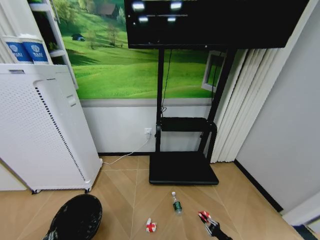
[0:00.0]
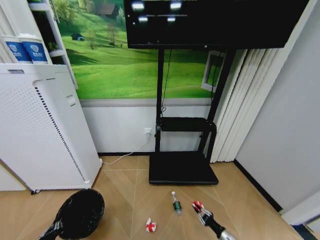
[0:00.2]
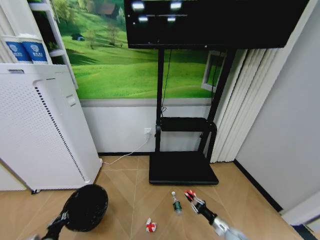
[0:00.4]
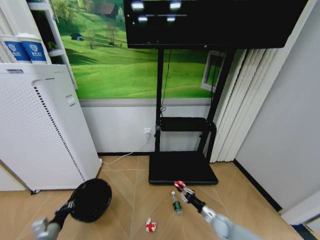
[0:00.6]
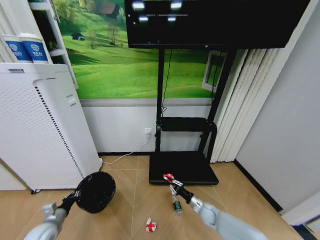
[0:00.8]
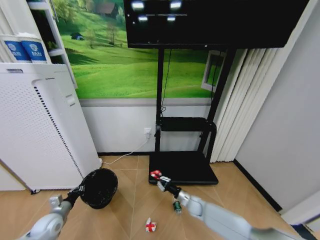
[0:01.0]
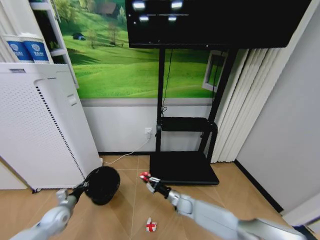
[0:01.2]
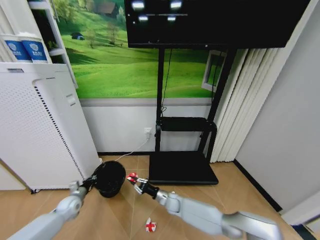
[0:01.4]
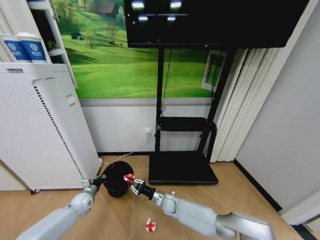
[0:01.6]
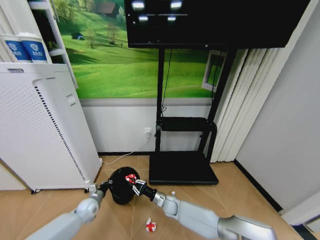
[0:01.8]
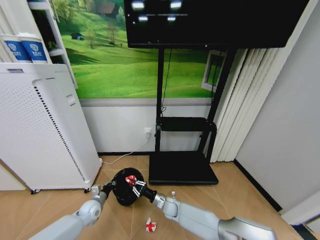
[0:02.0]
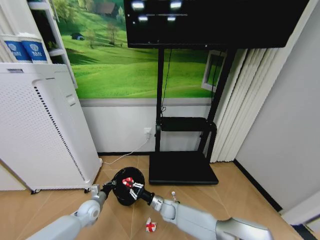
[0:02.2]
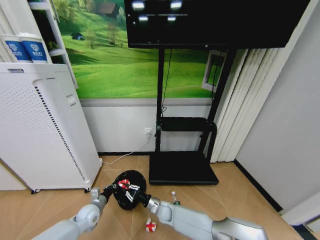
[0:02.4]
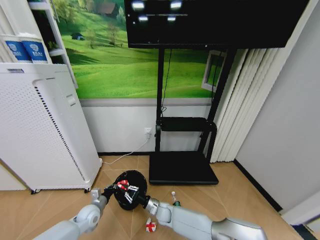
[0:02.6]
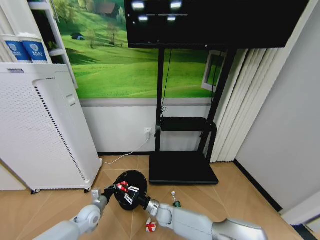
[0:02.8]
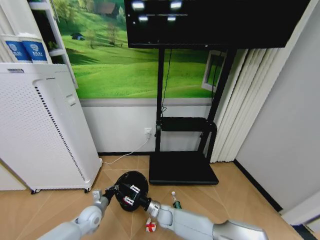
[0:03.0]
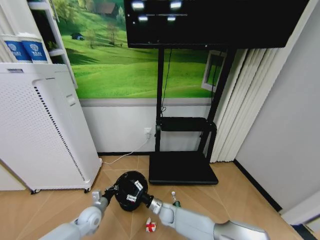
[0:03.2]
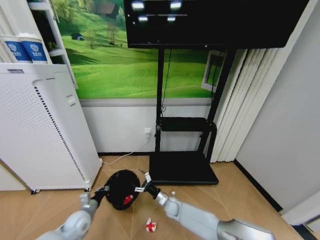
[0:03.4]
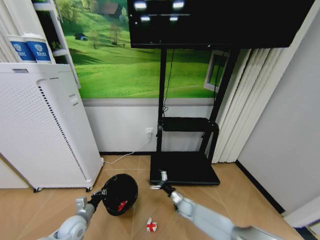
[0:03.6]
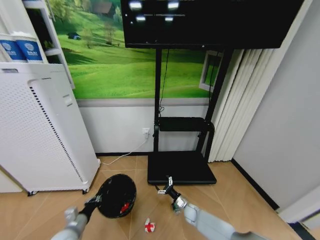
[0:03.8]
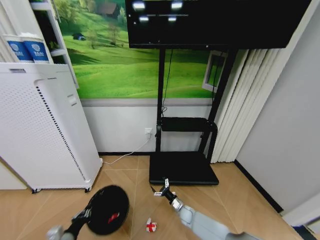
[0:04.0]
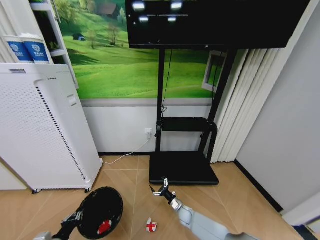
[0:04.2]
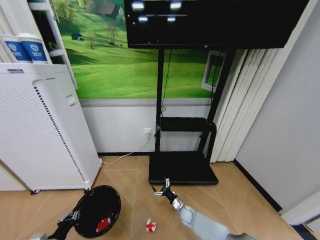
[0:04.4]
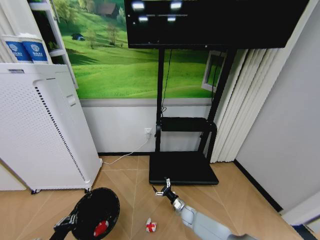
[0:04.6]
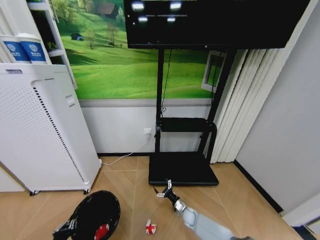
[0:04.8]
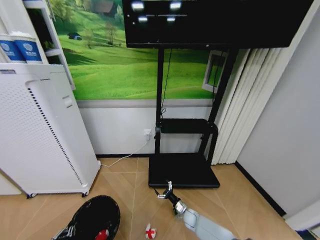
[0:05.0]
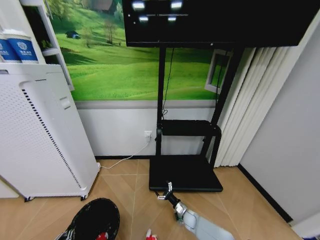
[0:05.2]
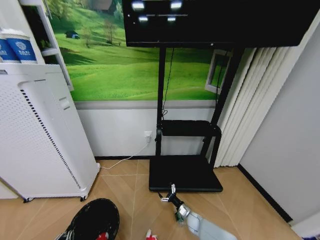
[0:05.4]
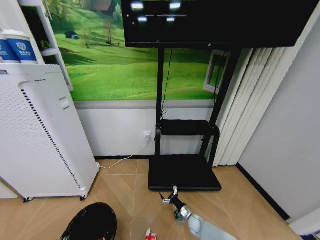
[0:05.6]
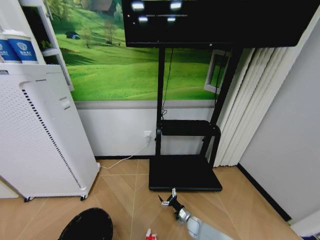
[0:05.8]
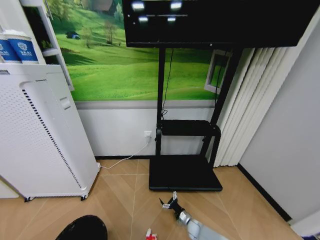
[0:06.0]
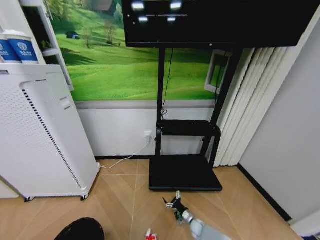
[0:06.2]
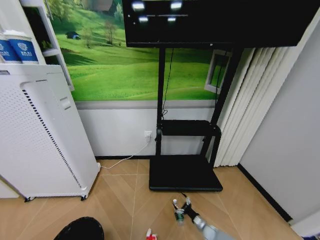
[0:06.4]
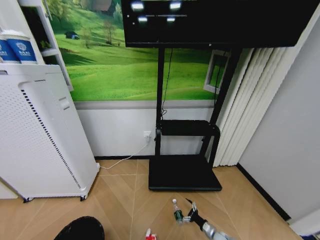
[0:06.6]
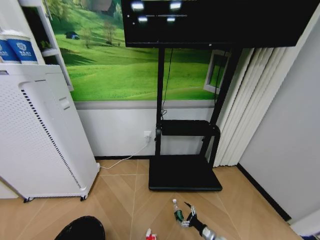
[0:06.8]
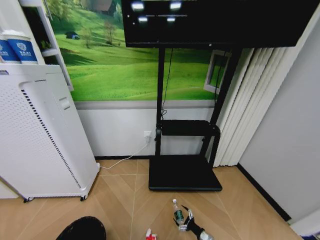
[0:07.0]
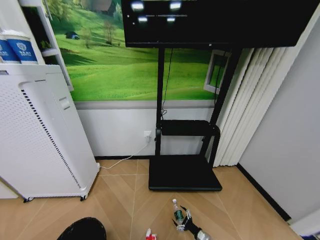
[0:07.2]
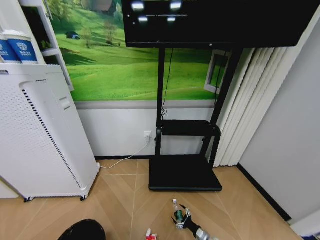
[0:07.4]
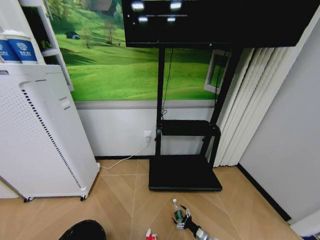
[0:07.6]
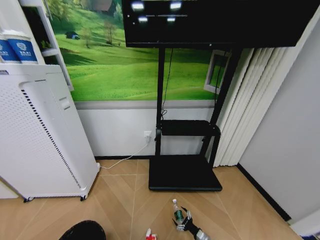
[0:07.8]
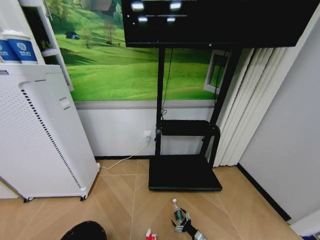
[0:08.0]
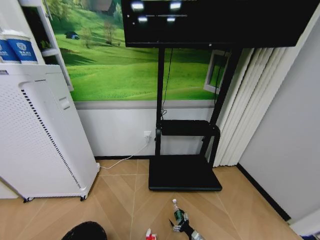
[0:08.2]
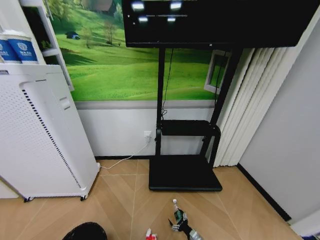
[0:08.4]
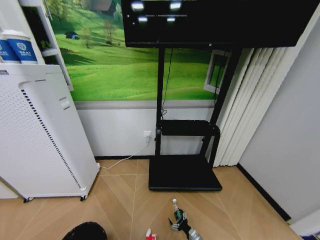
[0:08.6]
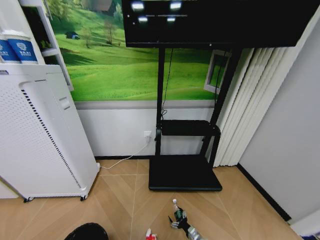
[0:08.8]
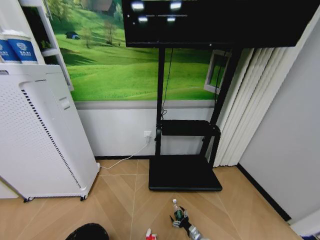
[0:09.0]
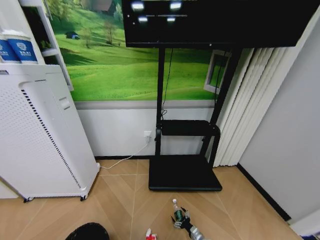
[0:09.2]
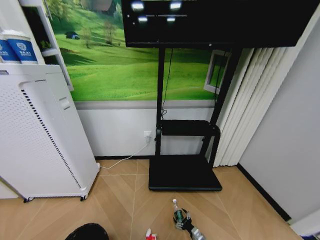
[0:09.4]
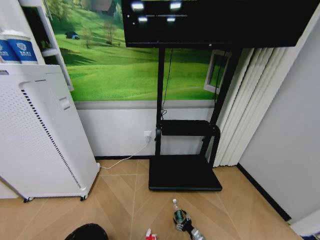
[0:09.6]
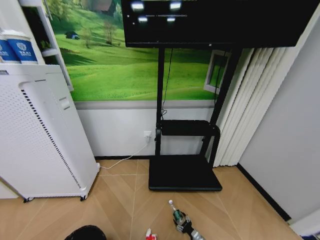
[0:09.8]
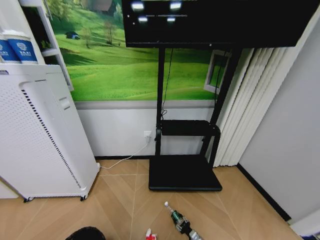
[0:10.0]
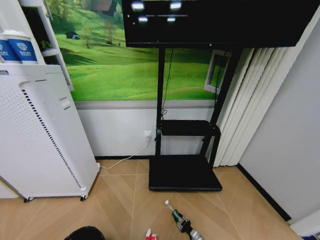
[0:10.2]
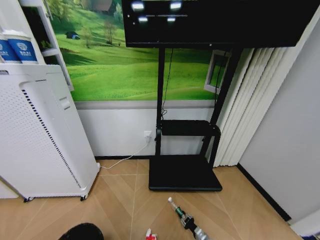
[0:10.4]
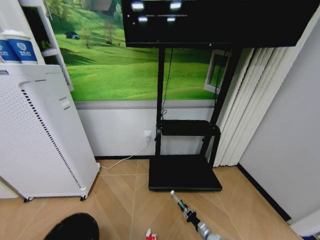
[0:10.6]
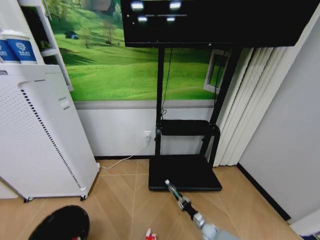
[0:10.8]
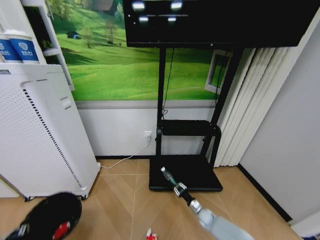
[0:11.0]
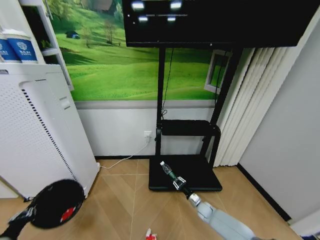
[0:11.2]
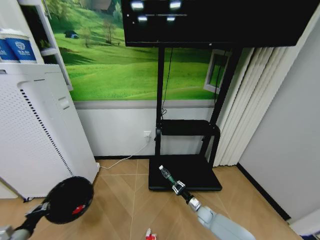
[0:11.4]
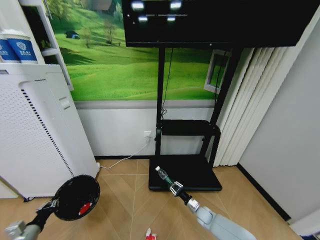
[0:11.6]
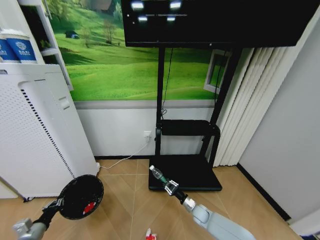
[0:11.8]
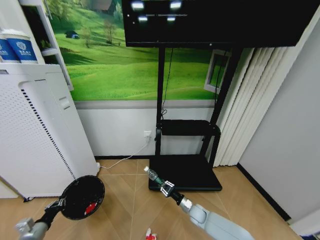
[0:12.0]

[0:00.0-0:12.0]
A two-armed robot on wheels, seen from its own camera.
Task of the whole recording: Pick up the trash bin and place the garbage on the floor into it.
0.0 to 1.6 s: The left gripper moves forward, about 30 cm; the right gripper heads to the left and forward, covering approximately 40 cm.
1.6 to 3.0 s: The right gripper changes place by approximately 5 cm. The left gripper is displaced to the right and backward by about 10 cm.
3.0 to 4.4 s: The left gripper is displaced backward and to the left by some 20 cm. Meanwhile the right gripper goes about 15 cm to the right and downward, and opens its fingers.
4.4 to 6.0 s: The left gripper moves backward, some 15 cm, while the right gripper moves downward and backward, some 10 cm.
6.0 to 7.6 s: The right gripper heads to the right and backward, covering some 10 cm.
10.4 to 12.0 s: The left gripper heads forward, covering about 25 cm. The right gripper is displaced upward, forward and to the left by approximately 20 cm.

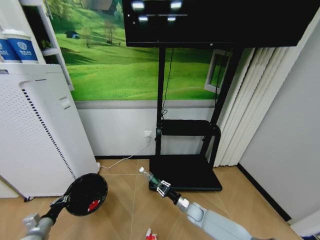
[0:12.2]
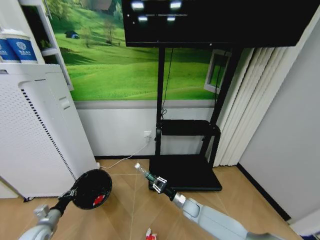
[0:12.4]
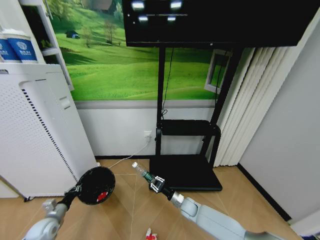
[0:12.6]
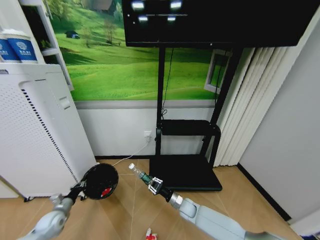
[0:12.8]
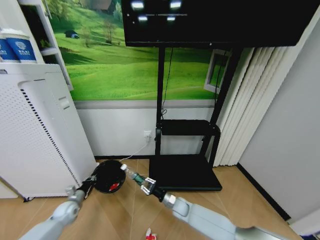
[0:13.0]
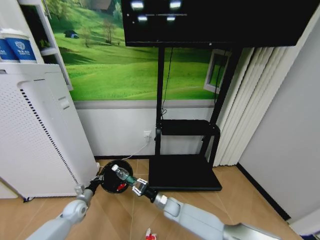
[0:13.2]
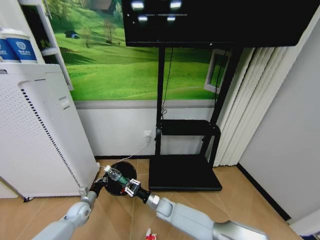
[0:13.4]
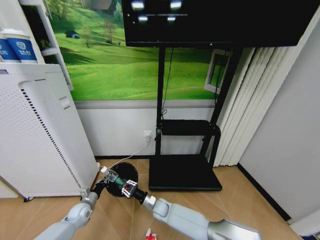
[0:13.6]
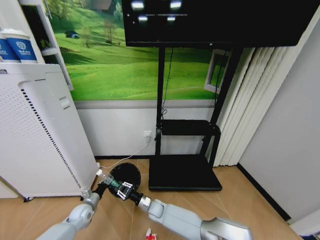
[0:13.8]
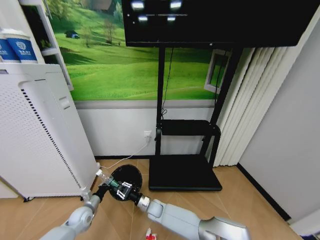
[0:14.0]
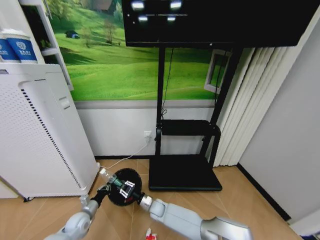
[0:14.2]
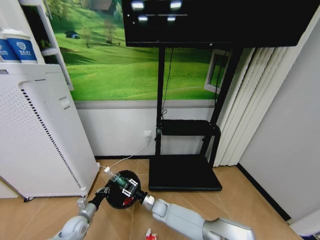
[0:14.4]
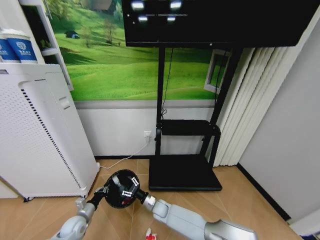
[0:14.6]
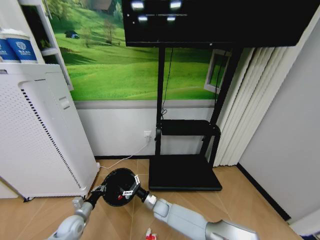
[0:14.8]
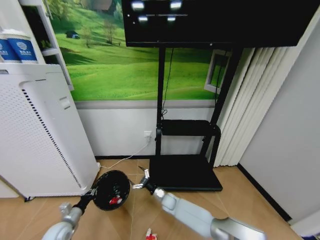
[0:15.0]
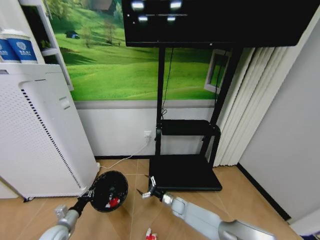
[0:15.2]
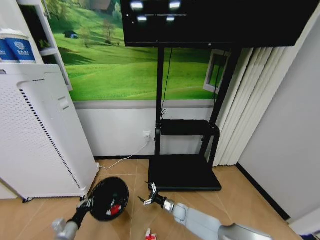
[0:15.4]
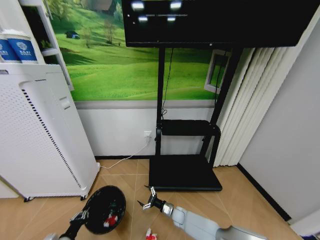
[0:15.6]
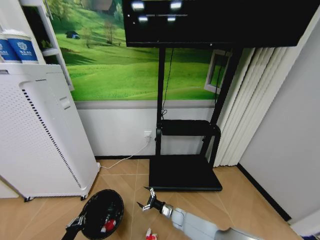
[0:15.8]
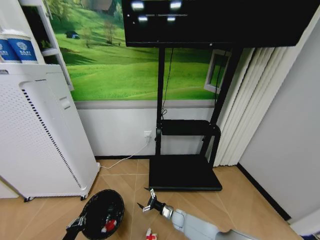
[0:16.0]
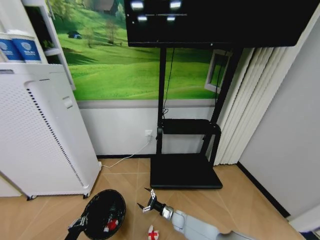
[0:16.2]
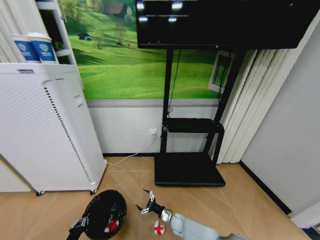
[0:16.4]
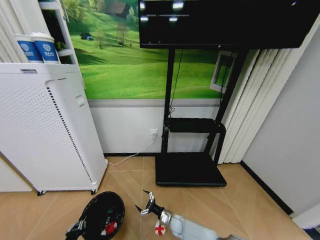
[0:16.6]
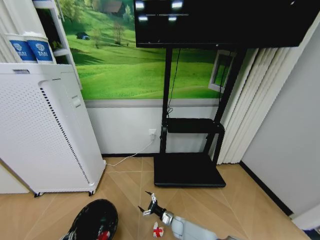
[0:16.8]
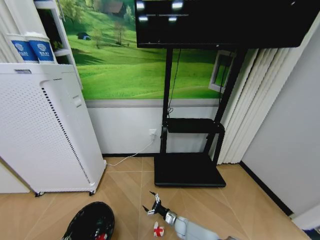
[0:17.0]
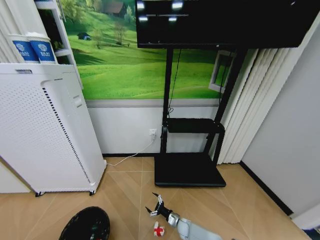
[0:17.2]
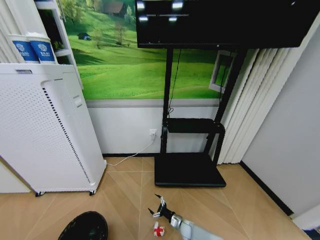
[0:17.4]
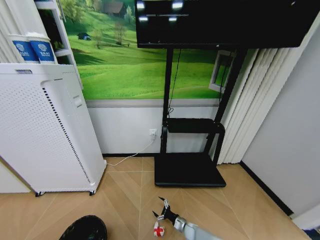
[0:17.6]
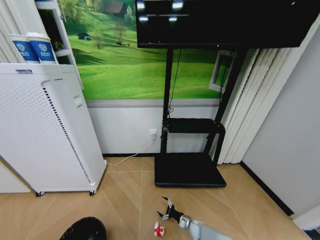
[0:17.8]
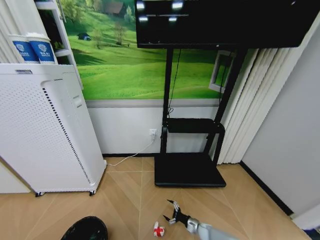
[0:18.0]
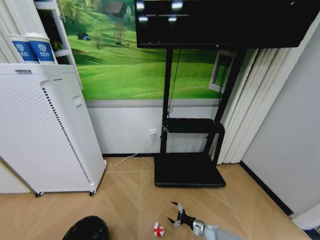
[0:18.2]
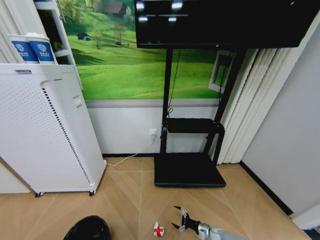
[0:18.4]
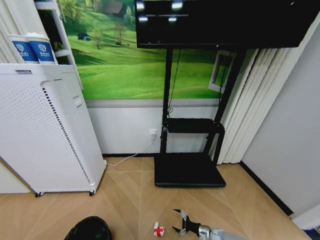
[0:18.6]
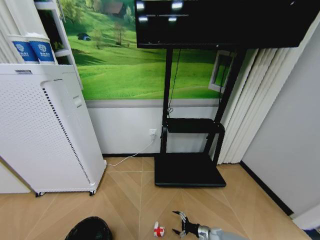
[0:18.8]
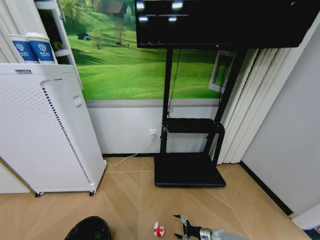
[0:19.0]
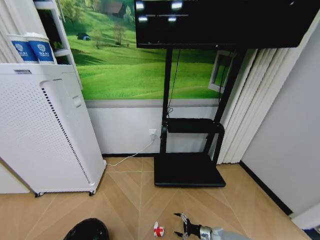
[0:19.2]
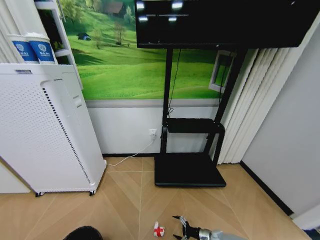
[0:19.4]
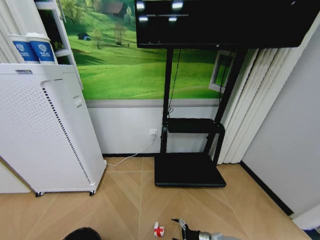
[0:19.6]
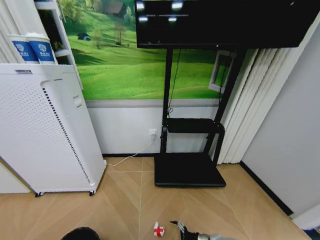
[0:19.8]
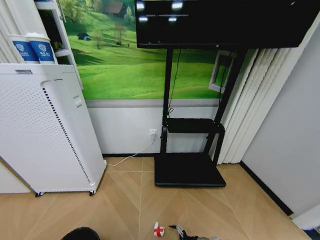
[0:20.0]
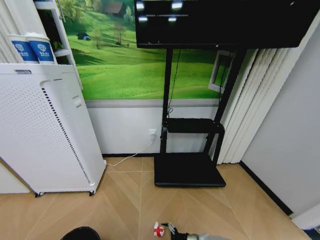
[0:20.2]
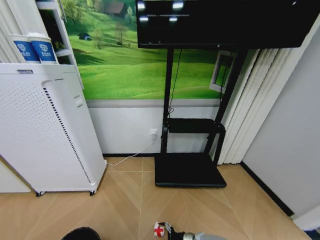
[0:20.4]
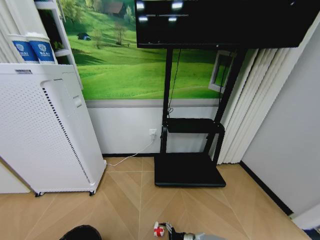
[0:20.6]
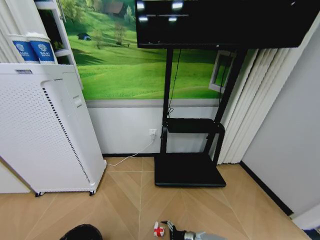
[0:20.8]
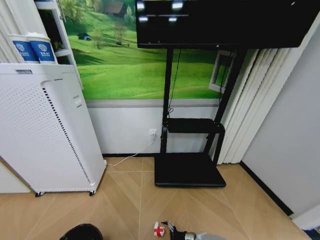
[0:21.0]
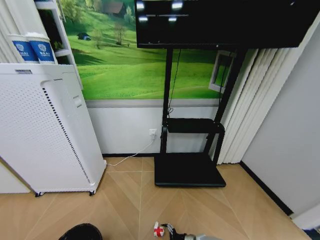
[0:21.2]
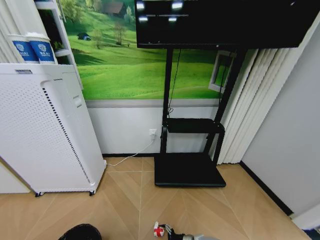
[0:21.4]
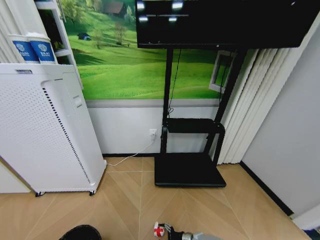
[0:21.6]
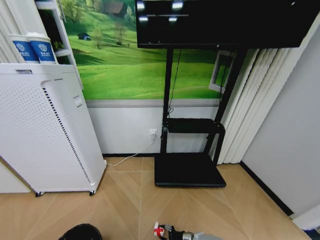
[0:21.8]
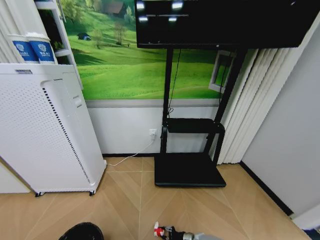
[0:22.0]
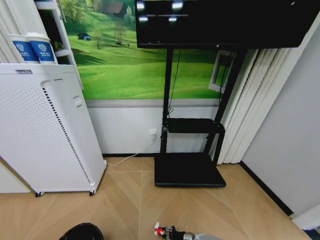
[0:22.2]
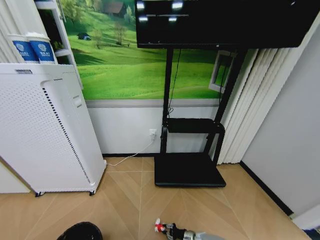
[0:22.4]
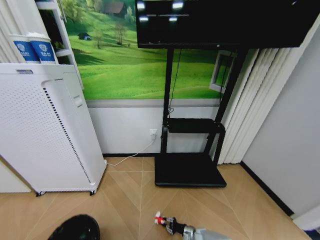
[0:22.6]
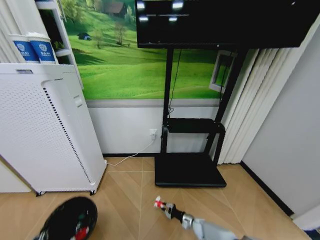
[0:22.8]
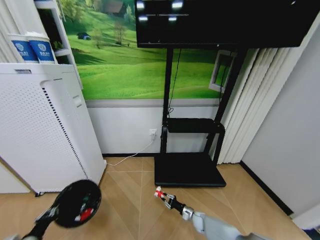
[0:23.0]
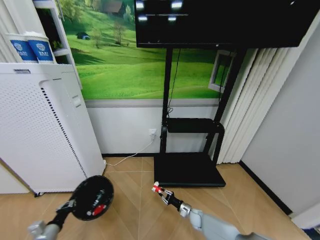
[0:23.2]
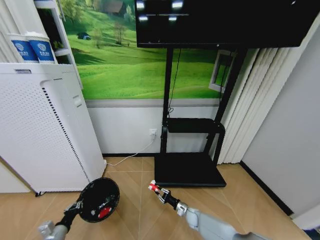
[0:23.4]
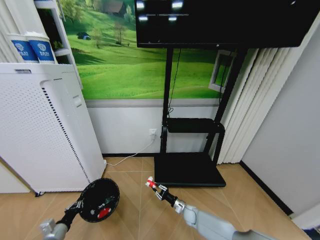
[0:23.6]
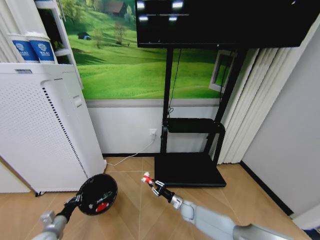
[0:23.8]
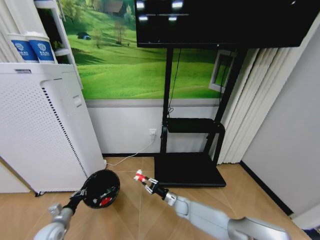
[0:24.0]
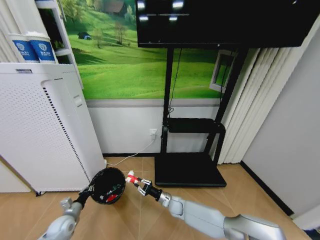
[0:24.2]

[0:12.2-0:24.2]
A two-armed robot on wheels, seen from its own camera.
Task of the whole recording: Pick up the trash bin and place the garbage on the floor into it.
12.2 to 13.8 s: The left gripper moves to the right and forward, some 20 cm; the right gripper is displaced to the left by some 20 cm.
13.8 to 15.2 s: The right gripper is displaced to the right by roughly 15 cm, and opens its fingers. The left gripper shifts about 10 cm backward and to the left.
15.2 to 16.6 s: The left gripper heads backward, covering some 15 cm; the right gripper travels backward and downward by roughly 10 cm.
16.6 to 18.2 s: The left gripper travels backward by some 10 cm; the right gripper is displaced to the right by approximately 20 cm.
18.2 to 19.8 s: The left gripper ends up approximately 5 cm from where it was.
21.2 to 22.6 s: The left gripper changes place by about 5 cm. The right gripper closes its fingers.
22.6 to 24.2 s: The right gripper is displaced upward, to the left and forward by about 25 cm. Meanwhile the left gripper travels forward by about 30 cm.
